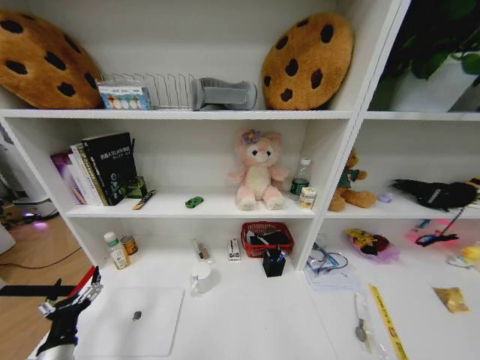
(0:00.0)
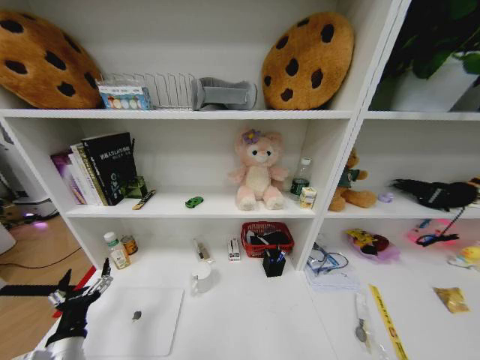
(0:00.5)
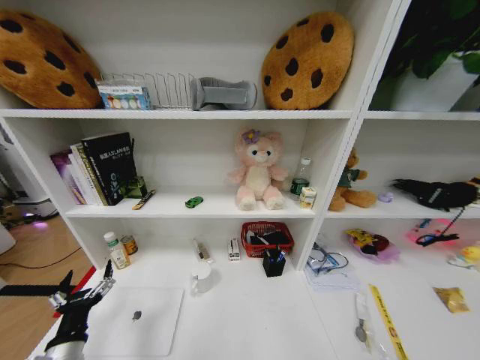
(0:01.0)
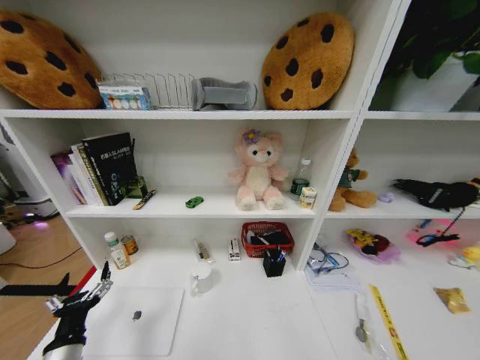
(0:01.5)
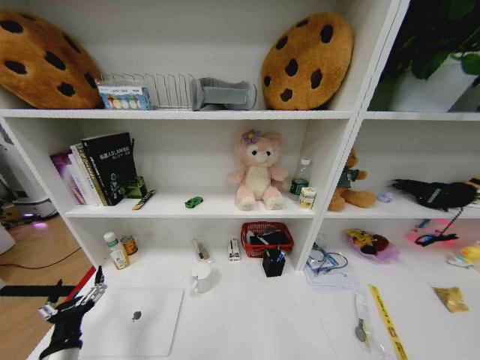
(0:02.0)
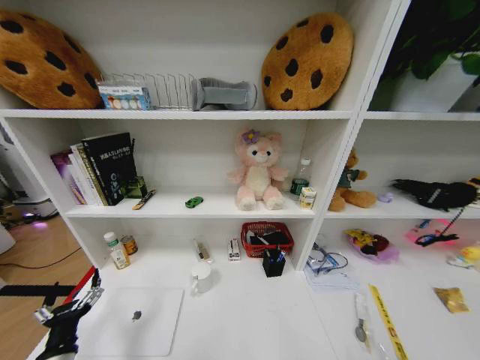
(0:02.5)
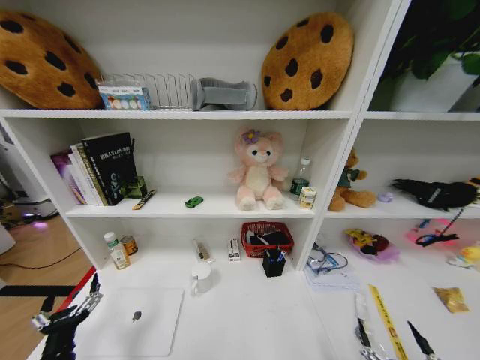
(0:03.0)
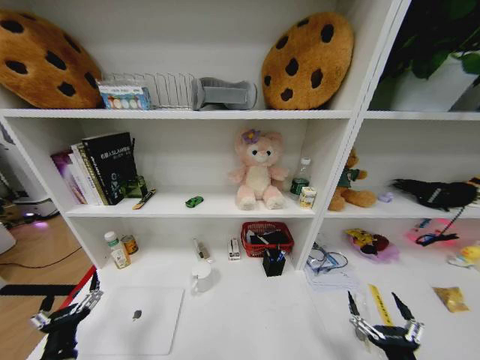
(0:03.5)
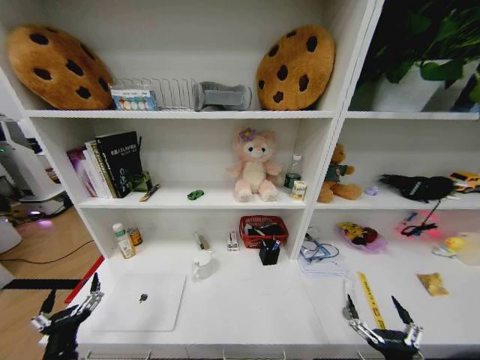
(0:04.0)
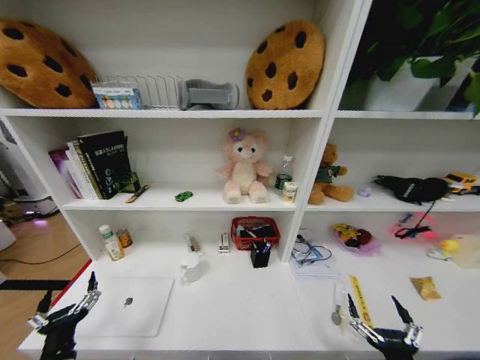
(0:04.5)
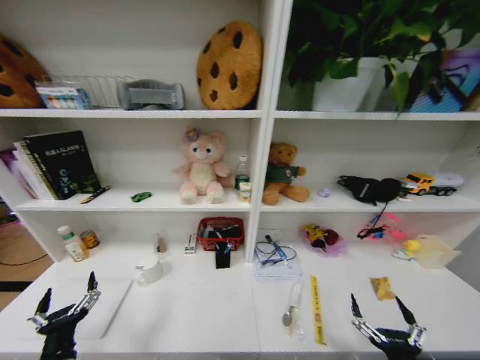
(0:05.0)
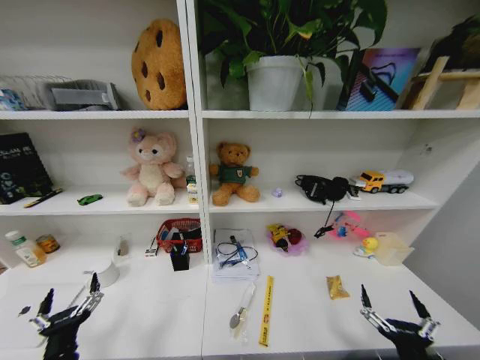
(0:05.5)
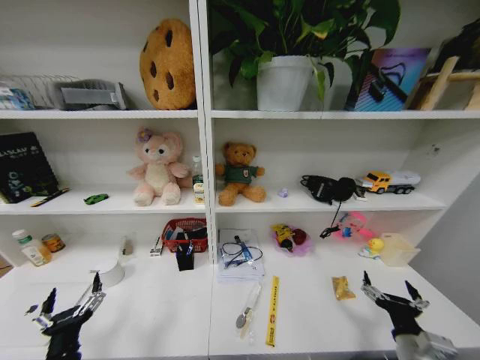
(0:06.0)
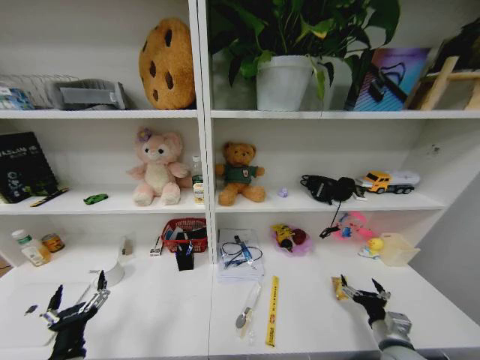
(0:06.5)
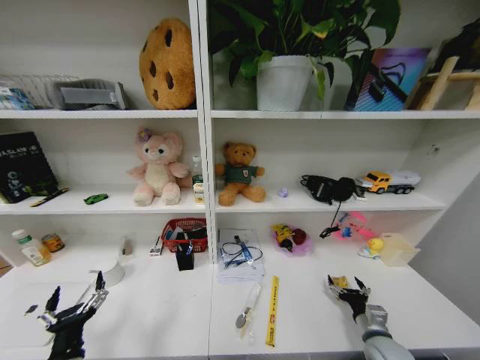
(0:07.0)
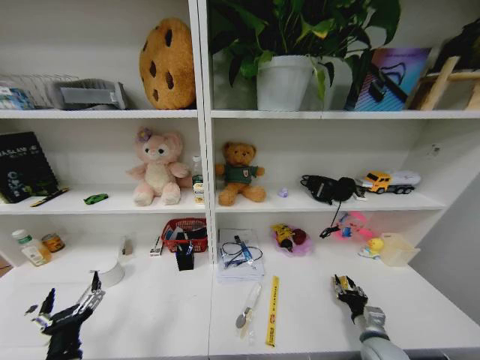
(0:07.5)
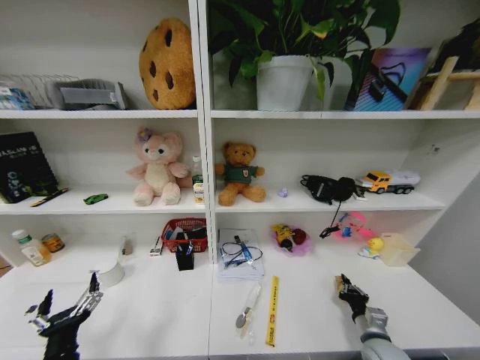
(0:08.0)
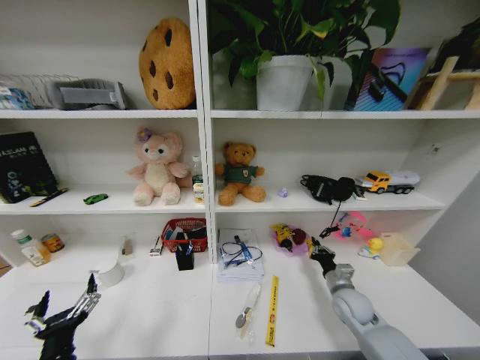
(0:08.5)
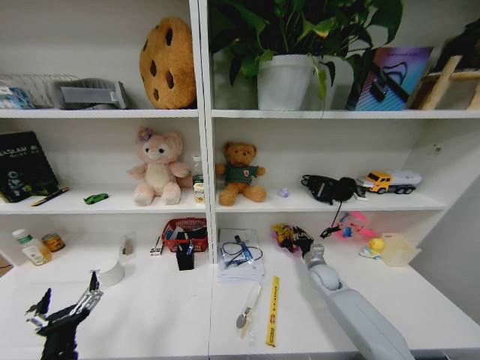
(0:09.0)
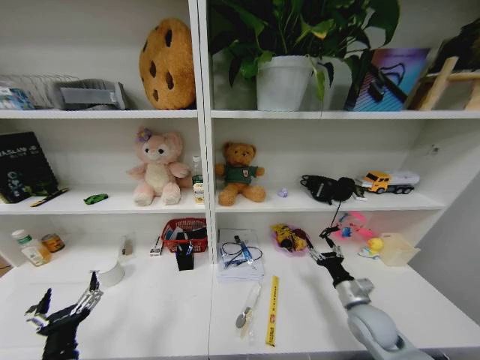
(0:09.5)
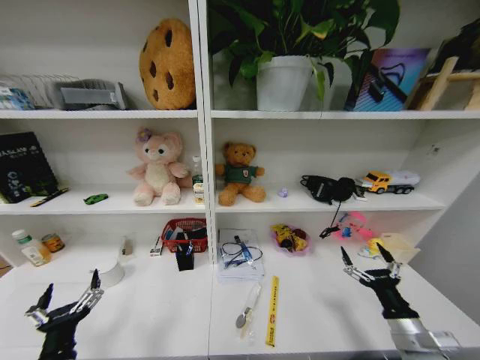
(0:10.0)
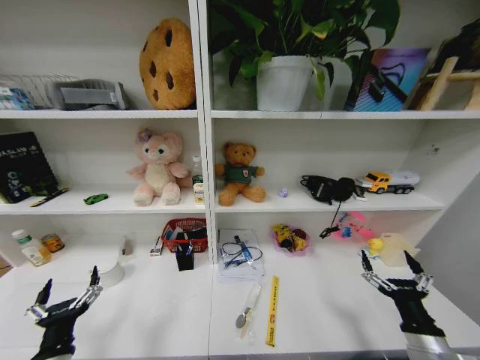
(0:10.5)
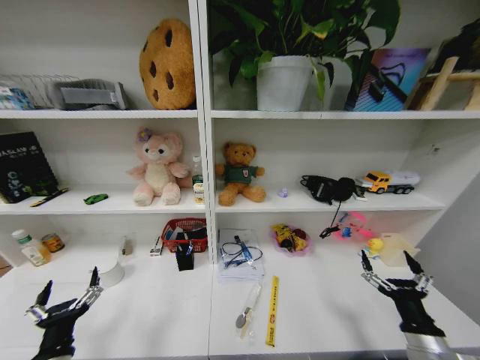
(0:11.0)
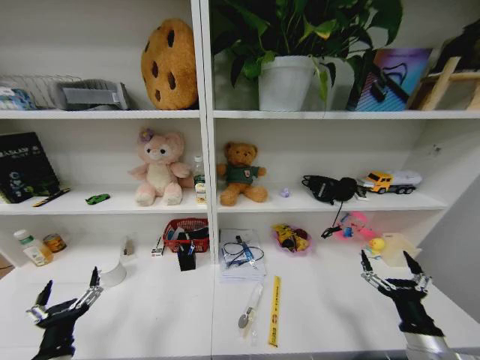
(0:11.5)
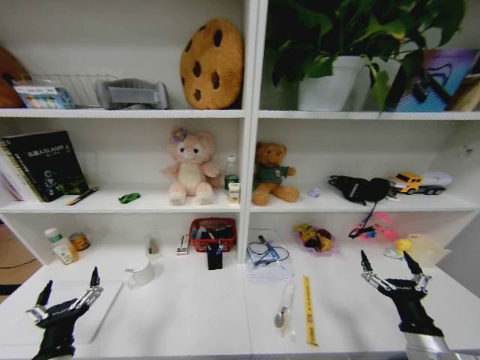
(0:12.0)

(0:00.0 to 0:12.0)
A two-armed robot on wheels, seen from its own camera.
Task of the whole recording: Organize the objects on the table.
0:02.0 - 0:04.0: The right gripper moves upward and forward, some 30 cm.
0:04.0 - 0:06.0: The right gripper goes approximately 10 cm forward.
0:06.0 - 0:08.0: The right gripper travels downward and forward by roughly 15 cm, and closes its fingers.
0:08.0 - 0:10.0: The right gripper is displaced upward by approximately 10 cm, reaches roughly 20 cm forward, then returns, and opens.

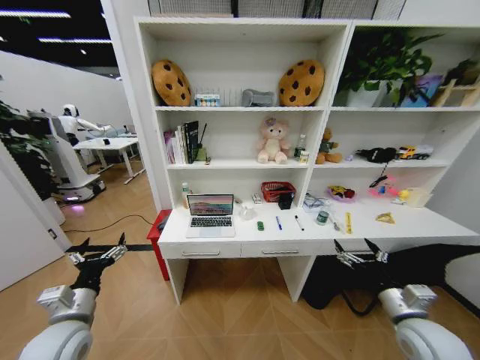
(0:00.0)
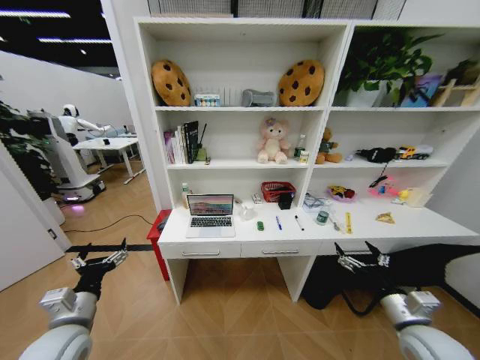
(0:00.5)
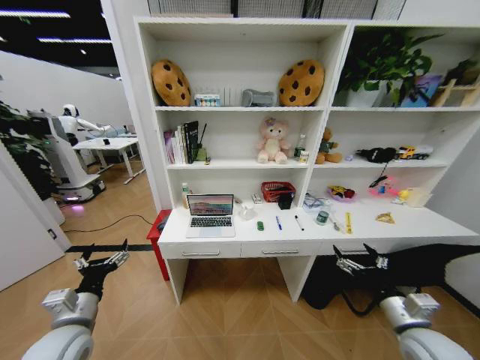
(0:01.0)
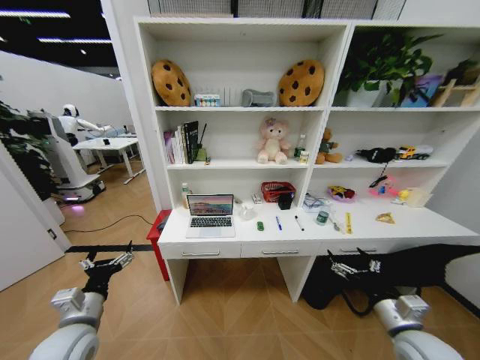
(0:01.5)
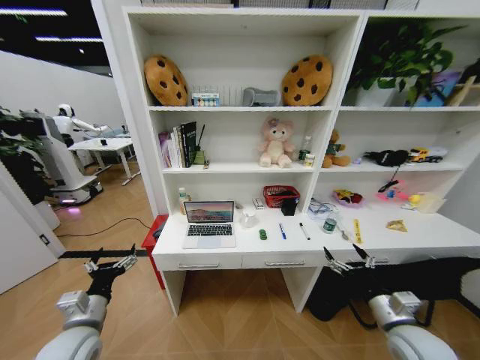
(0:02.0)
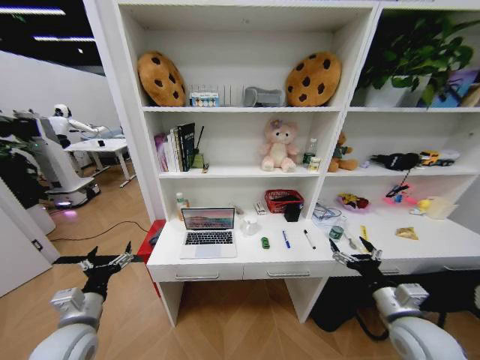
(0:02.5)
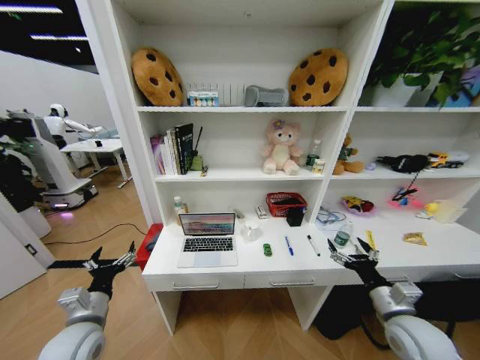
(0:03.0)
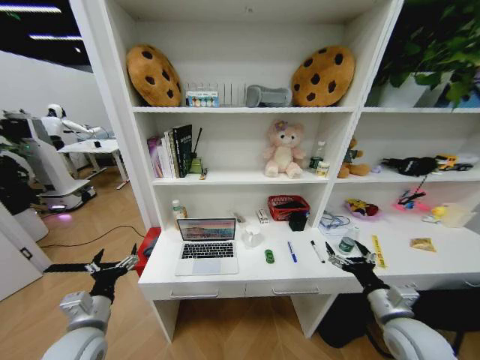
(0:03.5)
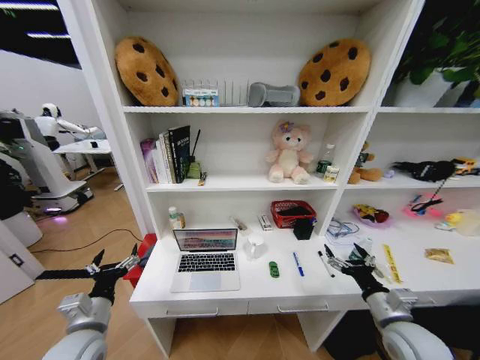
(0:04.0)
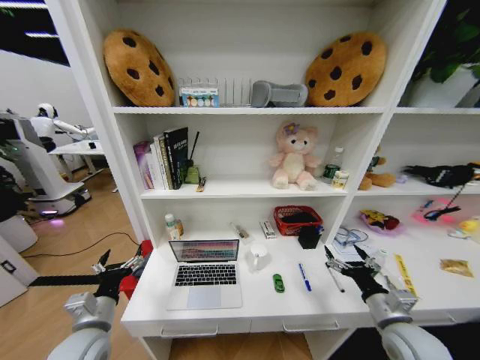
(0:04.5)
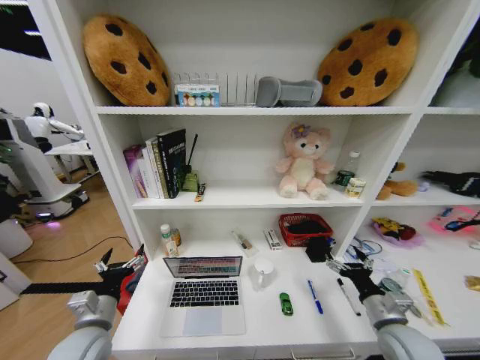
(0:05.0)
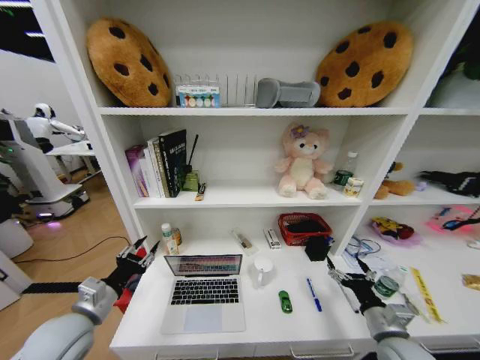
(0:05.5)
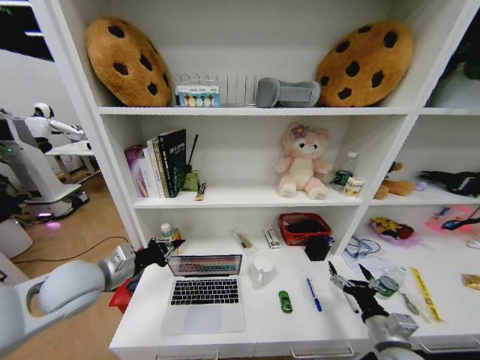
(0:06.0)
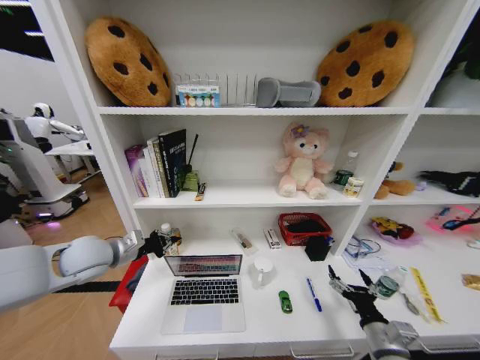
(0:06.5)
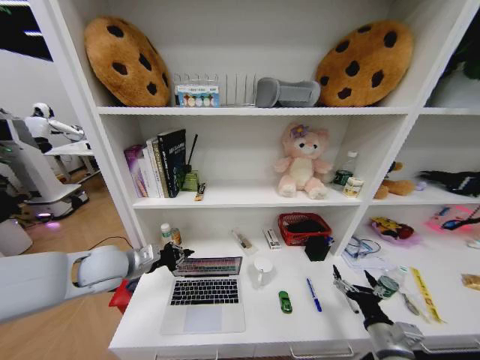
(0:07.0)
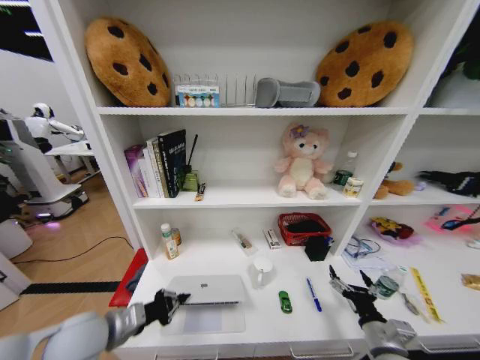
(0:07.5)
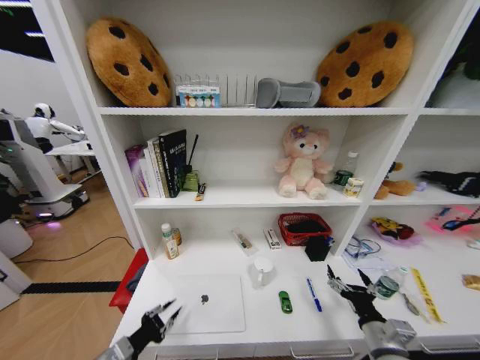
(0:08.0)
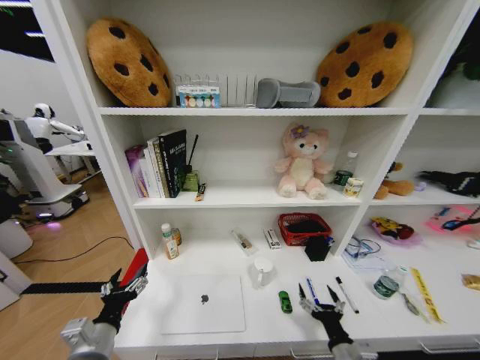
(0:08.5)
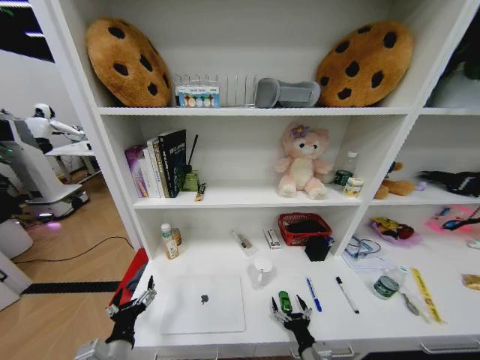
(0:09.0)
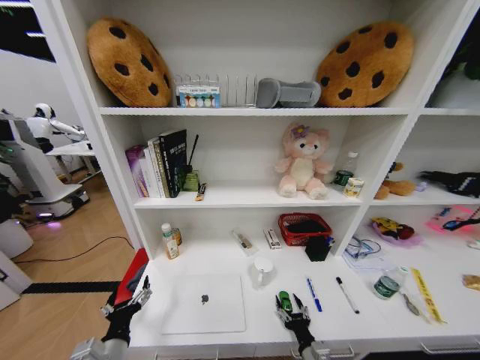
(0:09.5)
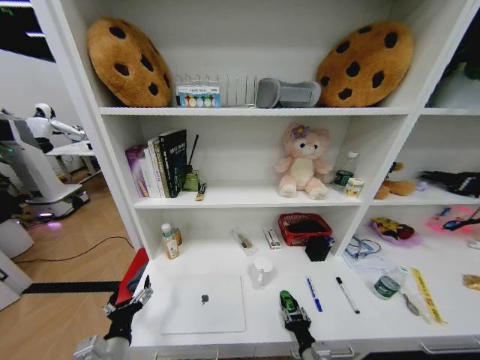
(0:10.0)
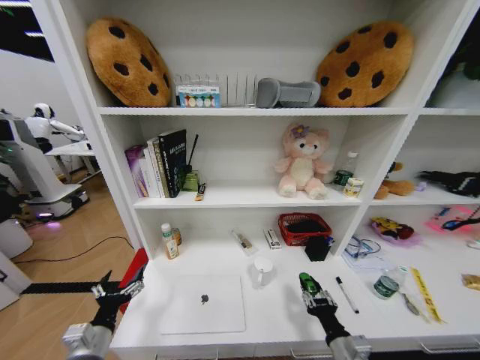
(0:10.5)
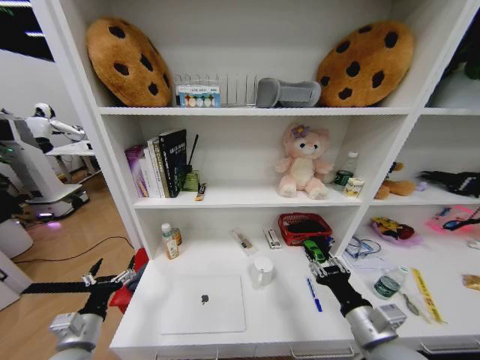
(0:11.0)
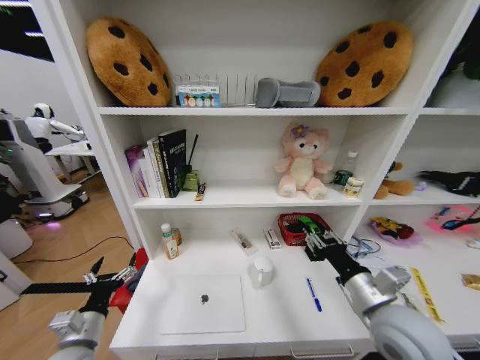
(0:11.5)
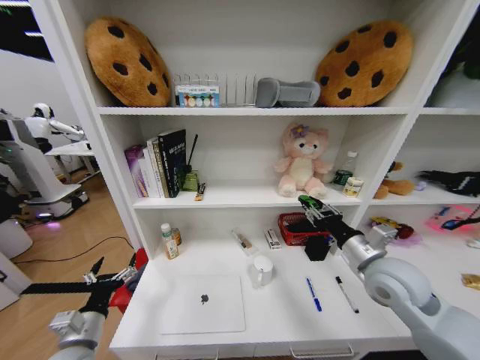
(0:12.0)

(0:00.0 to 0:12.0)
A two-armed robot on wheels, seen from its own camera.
Task of the whole recording: Organize the objects on the table.
0:04.0 - 0:06.0: The right gripper shifts by approximately 5 cm. Meanwhile the left gripper is displaced upward and forward by approximately 15 cm, and closes.
0:06.0 - 0:08.0: The left gripper is displaced downward and backward by about 20 cm.
0:08.0 - 0:10.0: The left gripper moves roughly 5 cm, and opens up; the right gripper heads to the left and downward, covering some 15 cm, and closes its fingers.
0:10.0 - 0:12.0: The right gripper goes some 35 cm upward and forward. Meanwhile the left gripper travels to the left by roughly 10 cm.

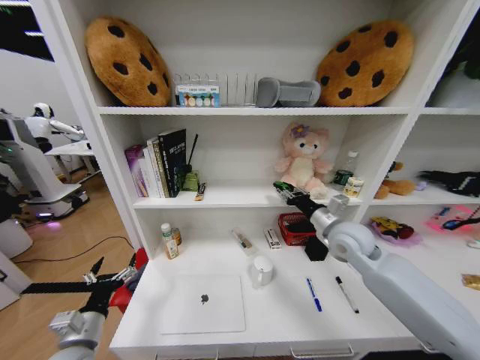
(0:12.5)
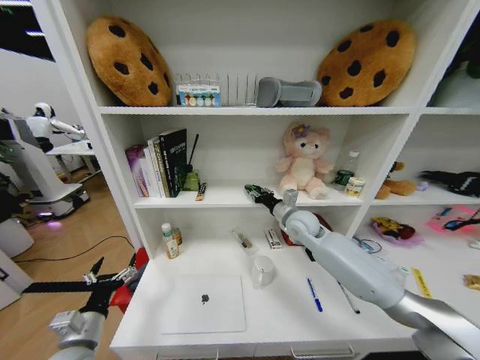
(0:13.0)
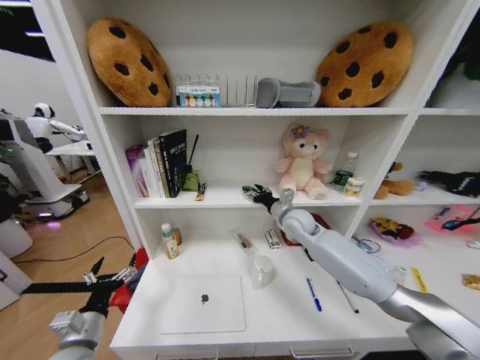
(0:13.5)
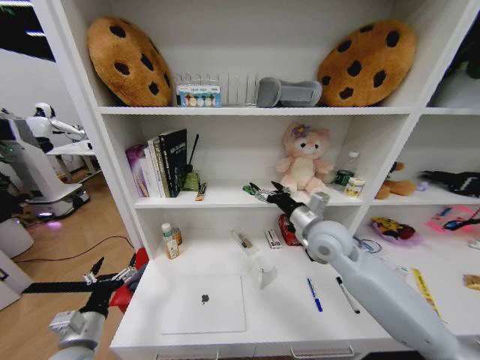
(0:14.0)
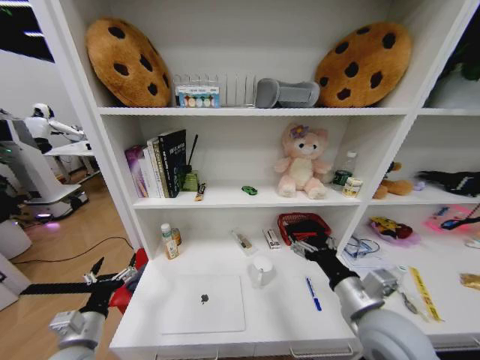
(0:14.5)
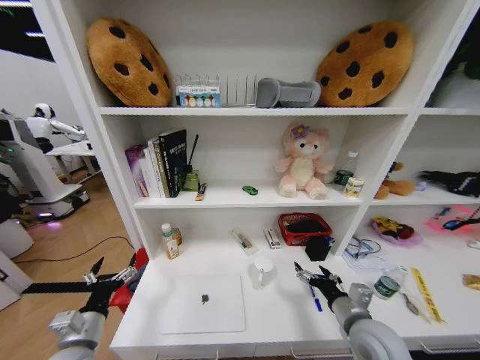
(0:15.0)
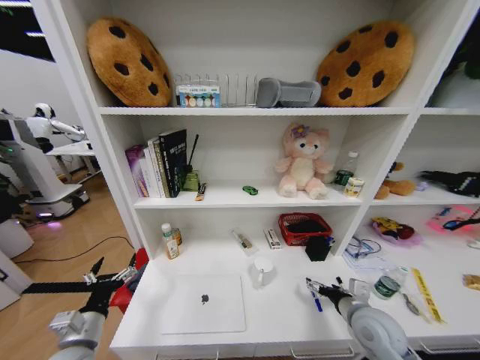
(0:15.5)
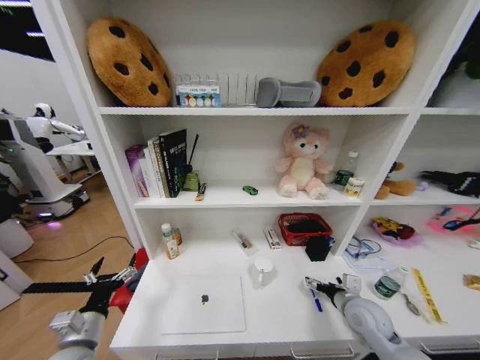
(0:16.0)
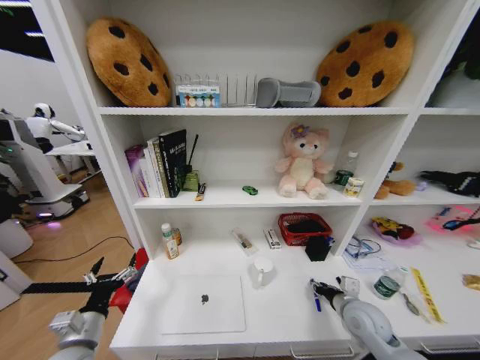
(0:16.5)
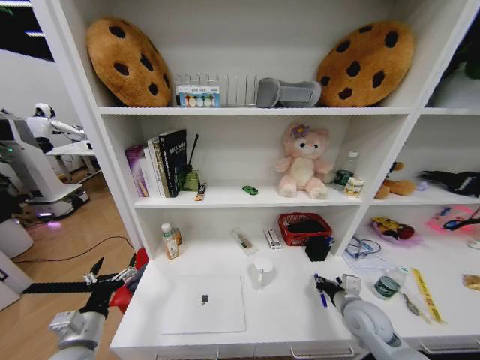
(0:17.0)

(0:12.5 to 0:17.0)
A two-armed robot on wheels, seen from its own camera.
Task of the whole recording: Organize the objects on the table.
0:12.5 - 0:14.5: The right gripper shifts approximately 20 cm backward, and opens.
0:14.5 - 0:17.0: The right gripper travels downward, to the right and forward by some 20 cm, and closes up.
